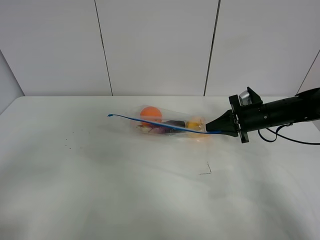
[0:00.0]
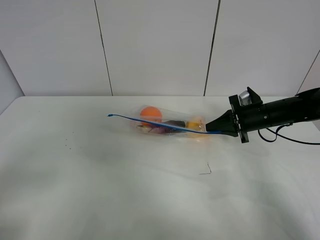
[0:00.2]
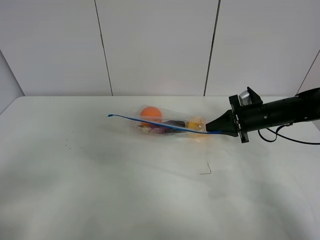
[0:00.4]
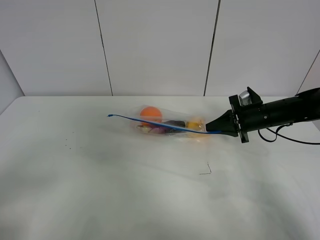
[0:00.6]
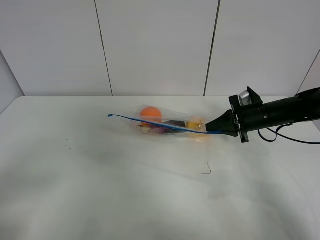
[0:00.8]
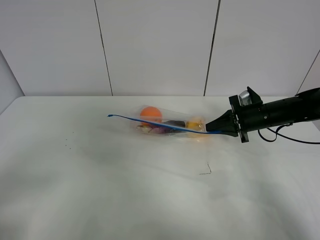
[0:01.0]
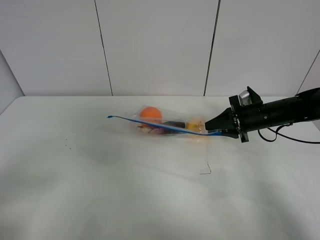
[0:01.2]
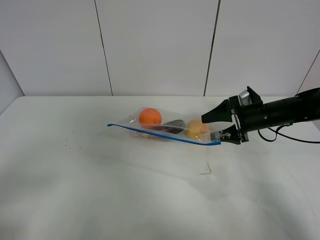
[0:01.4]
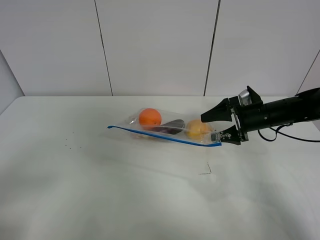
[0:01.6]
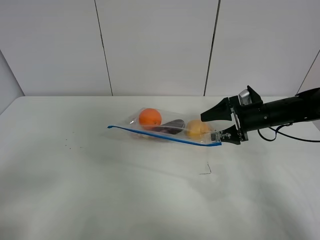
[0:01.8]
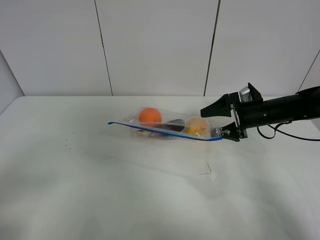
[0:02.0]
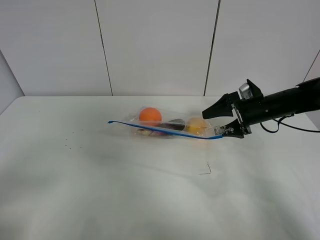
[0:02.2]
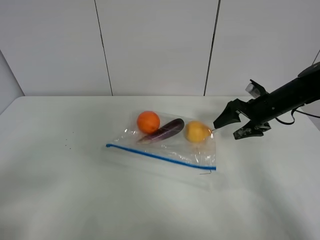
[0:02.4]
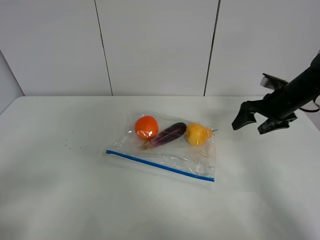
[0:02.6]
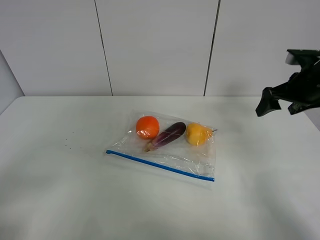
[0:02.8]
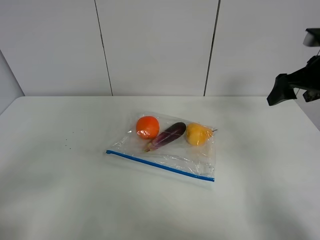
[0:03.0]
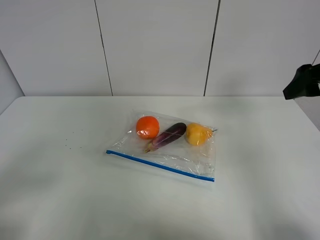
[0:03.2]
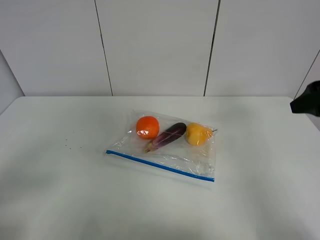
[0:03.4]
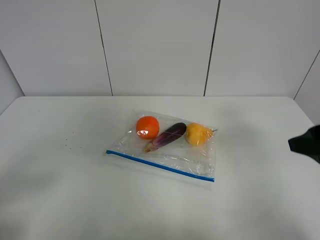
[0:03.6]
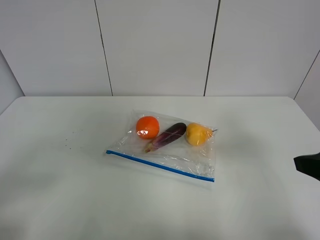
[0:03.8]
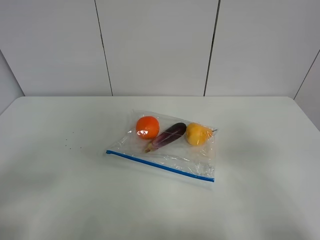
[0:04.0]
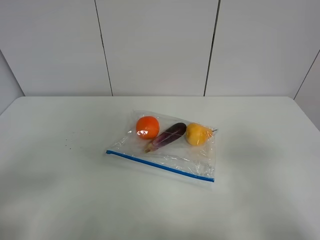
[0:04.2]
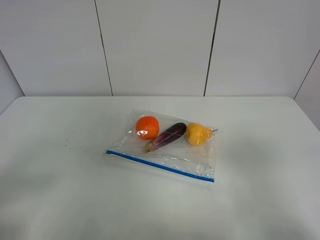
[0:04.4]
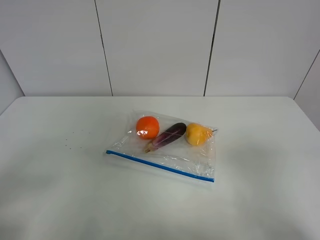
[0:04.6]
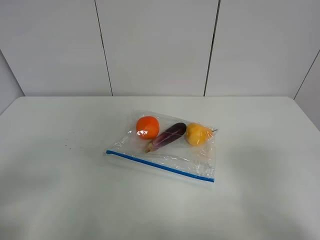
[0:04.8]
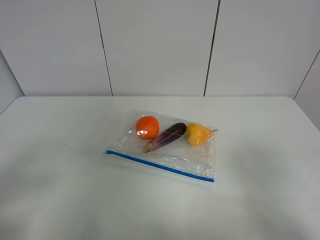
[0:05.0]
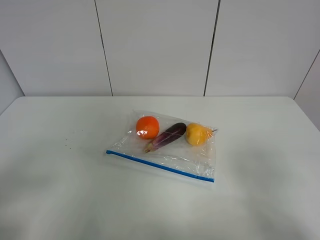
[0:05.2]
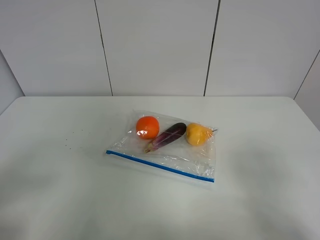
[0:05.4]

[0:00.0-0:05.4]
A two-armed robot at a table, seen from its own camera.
Step, 0:00.0 to 0:02.4: Place the fruit bag with right gripper.
0:00.0 to 0:01.4: The right gripper opens its fingers.
0:01.4 to 0:02.8: The right gripper goes approximately 15 cm upward and to the right.
0:02.8 to 0:04.0: The right gripper heads backward, covering roughly 30 cm.
